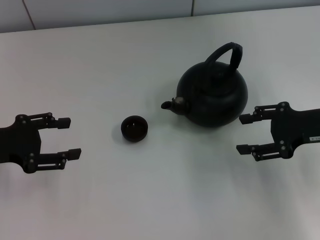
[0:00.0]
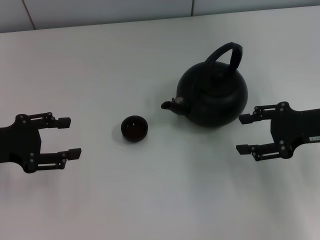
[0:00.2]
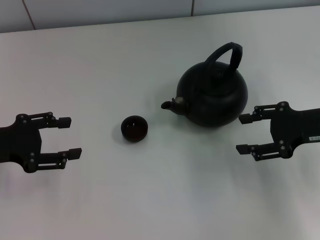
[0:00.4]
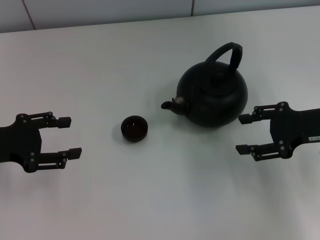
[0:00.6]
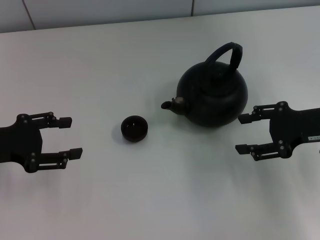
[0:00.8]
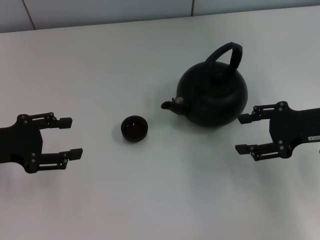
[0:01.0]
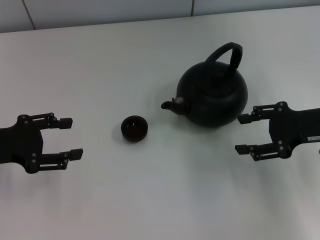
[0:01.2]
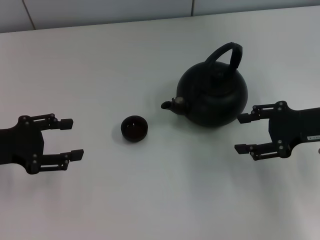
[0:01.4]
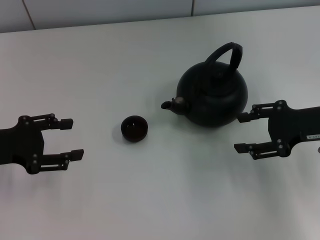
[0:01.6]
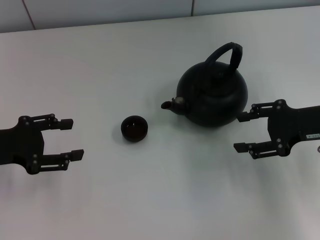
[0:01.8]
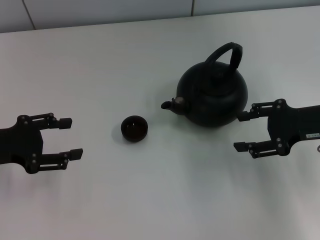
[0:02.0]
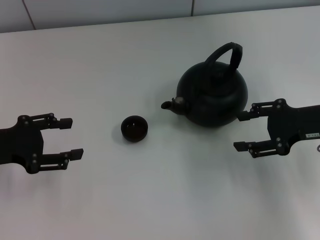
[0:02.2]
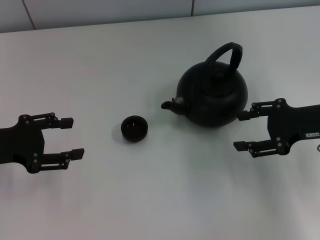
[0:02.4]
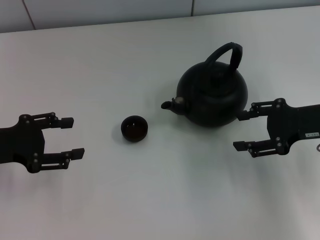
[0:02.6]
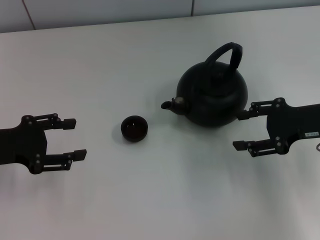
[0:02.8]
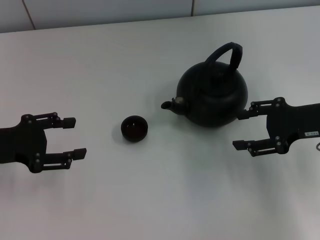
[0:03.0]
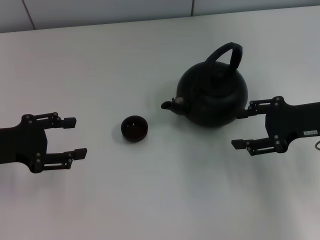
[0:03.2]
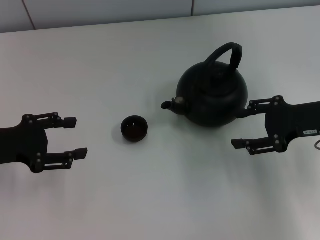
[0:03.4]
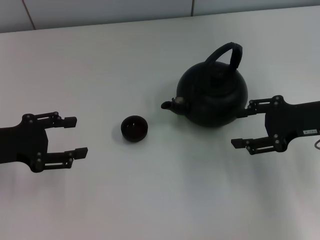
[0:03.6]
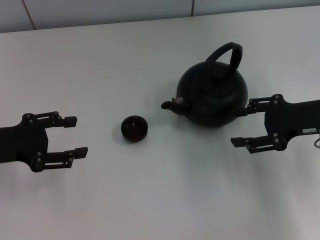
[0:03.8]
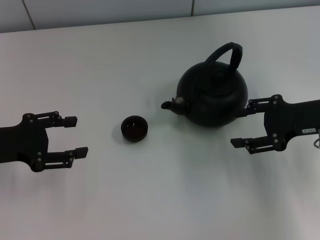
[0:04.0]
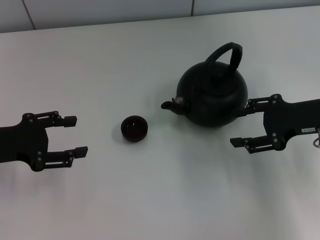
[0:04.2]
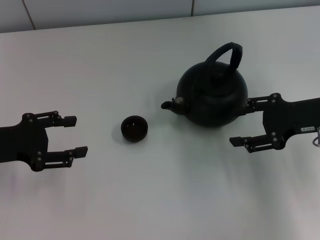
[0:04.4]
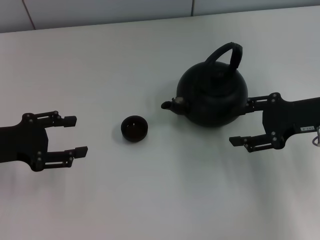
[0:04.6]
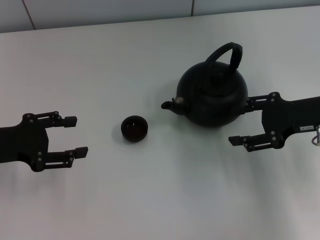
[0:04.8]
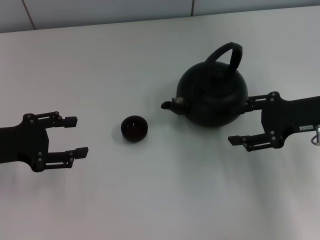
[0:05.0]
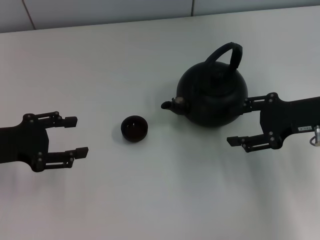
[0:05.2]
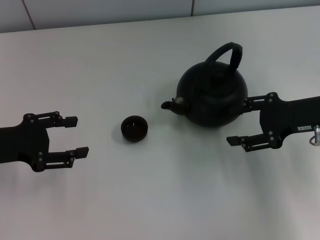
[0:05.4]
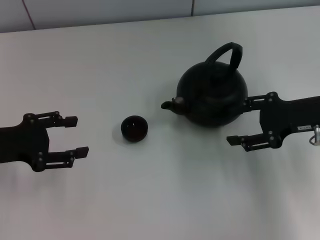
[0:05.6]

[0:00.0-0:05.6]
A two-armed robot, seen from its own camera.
Task of the whole recording: Grasp the handle of the teapot with one hand and pour tea into the teacup.
0:00.0 to 0:02.8: Both grippers stay about where they are.
0:02.8 to 0:05.6: Neither gripper changes place.
